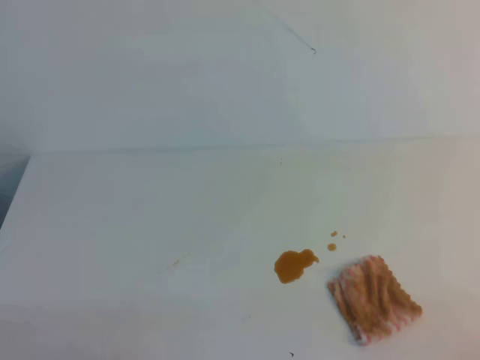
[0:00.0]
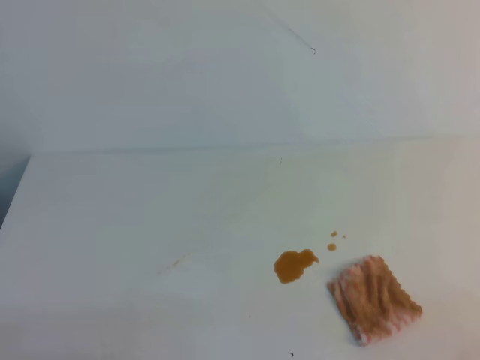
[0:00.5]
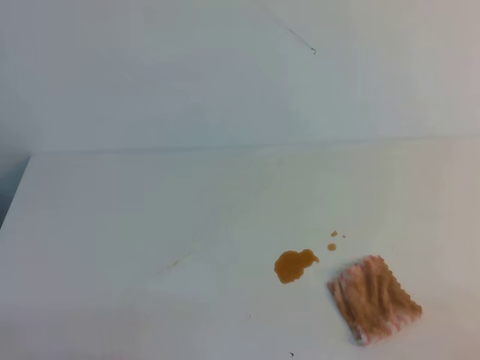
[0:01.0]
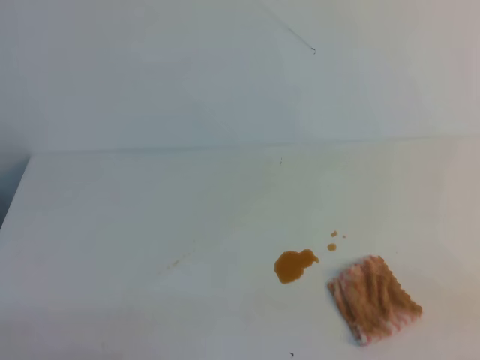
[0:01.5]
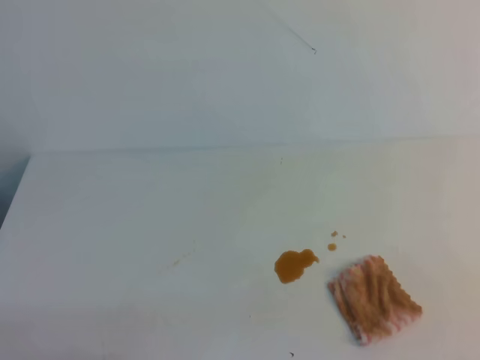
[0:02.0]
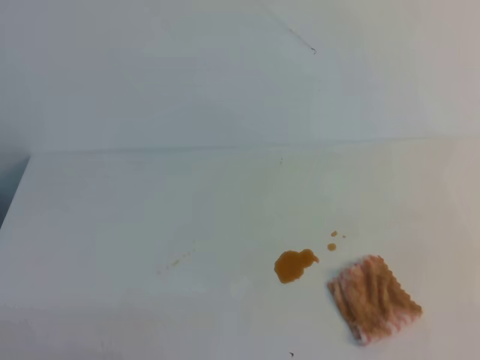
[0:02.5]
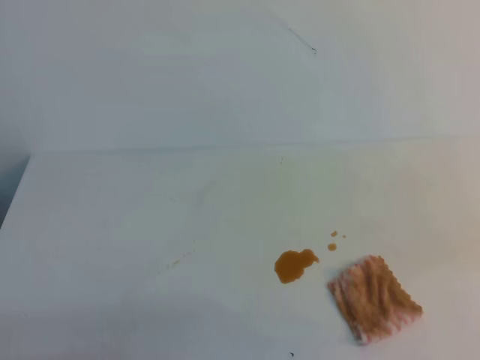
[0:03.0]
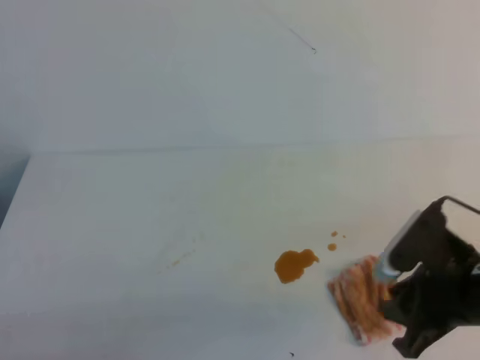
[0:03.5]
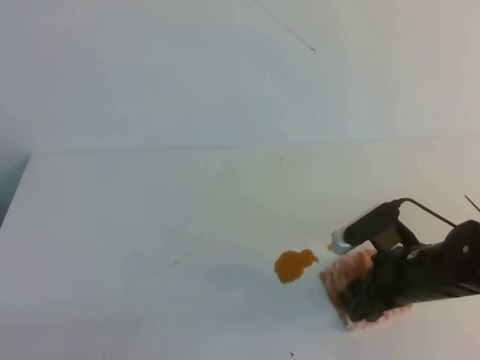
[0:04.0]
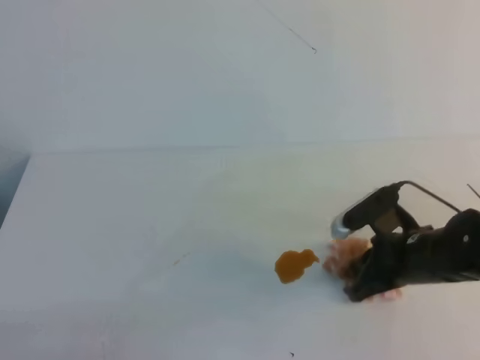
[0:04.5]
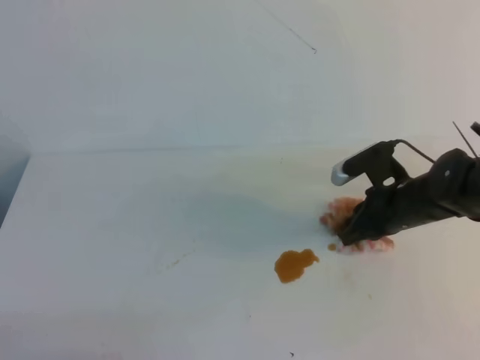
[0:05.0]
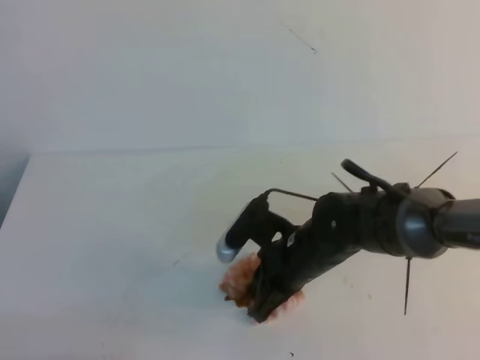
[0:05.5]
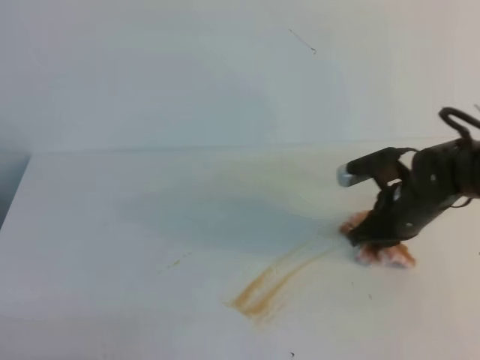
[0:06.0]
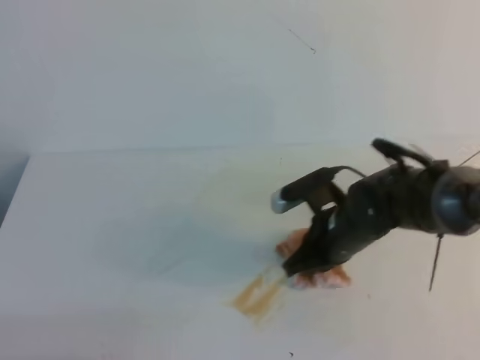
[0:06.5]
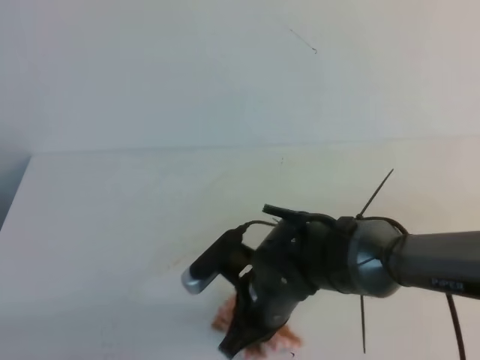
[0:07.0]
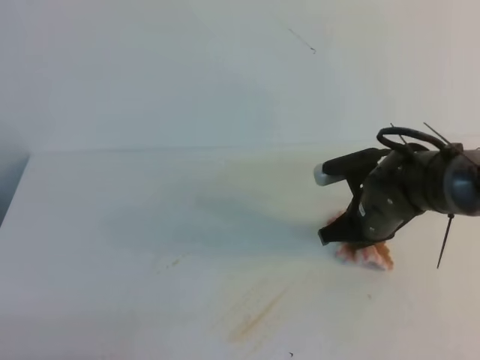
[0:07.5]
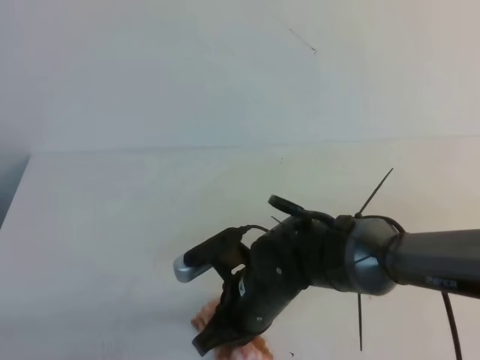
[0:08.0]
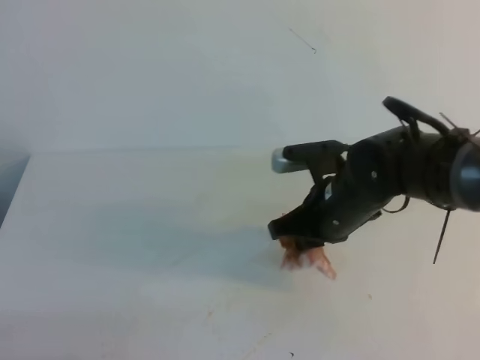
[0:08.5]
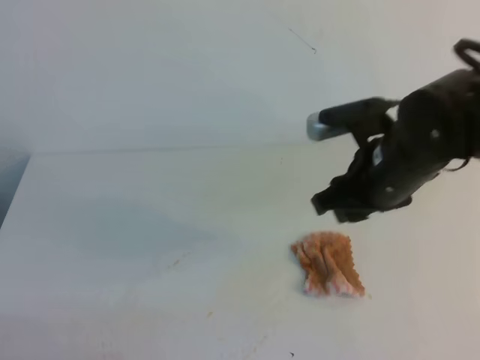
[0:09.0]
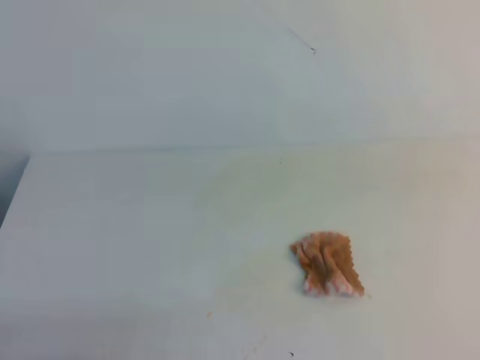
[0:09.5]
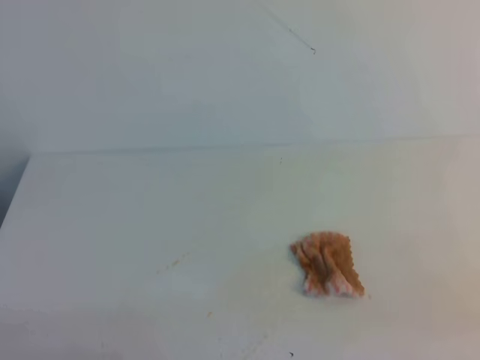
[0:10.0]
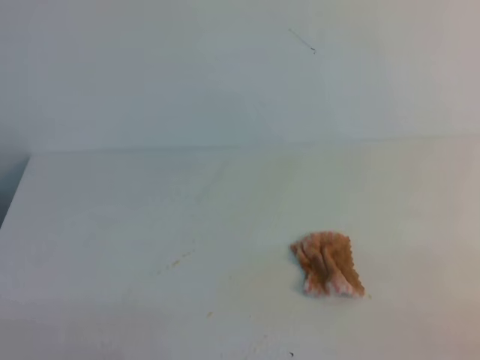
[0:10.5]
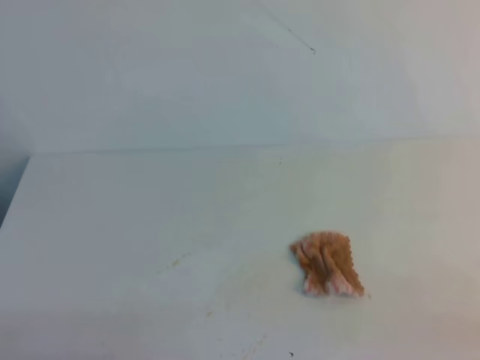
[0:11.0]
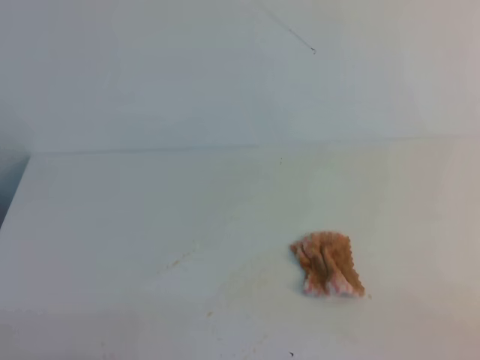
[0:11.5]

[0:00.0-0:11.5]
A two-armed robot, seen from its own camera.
0:02.0 to 0:04.0: The right gripper moves forward, to the left and downward, roughly 30 cm, and opens up.
0:04.0 to 0:06.0: The right gripper moves forward, roughly 10 cm, travels to the left and back again, about 10 cm each way, and closes.
0:06.0 to 0:07.5: The right gripper goes to the left and returns, approximately 15 cm each way.
0:07.5 to 0:09.5: The right gripper is displaced upward, backward and to the right by some 30 cm, and opens, then closes once more.

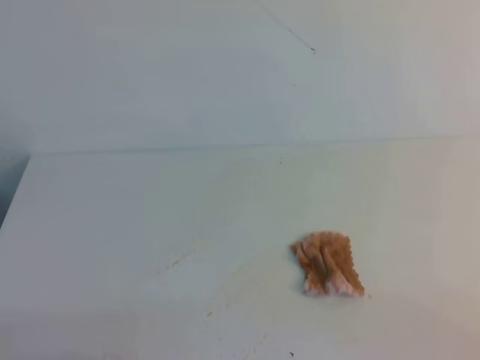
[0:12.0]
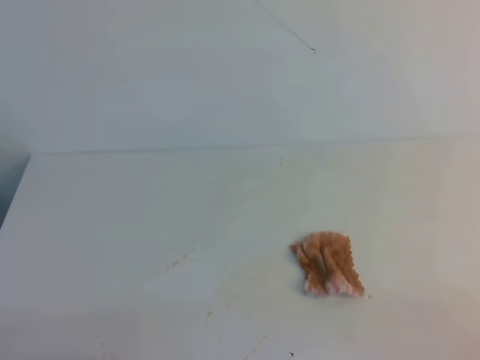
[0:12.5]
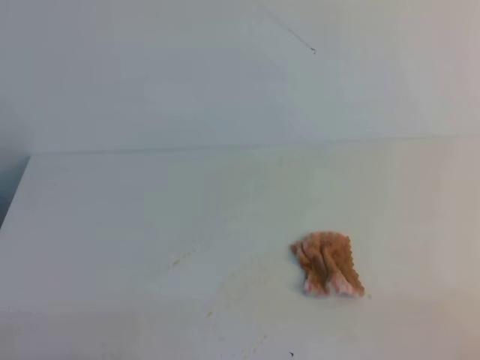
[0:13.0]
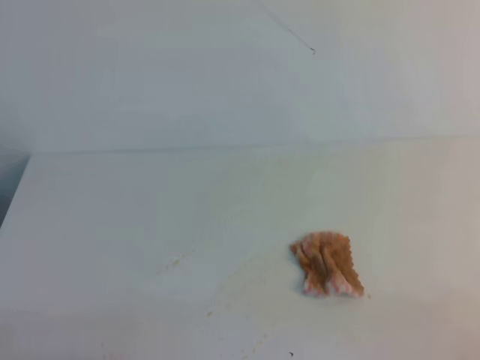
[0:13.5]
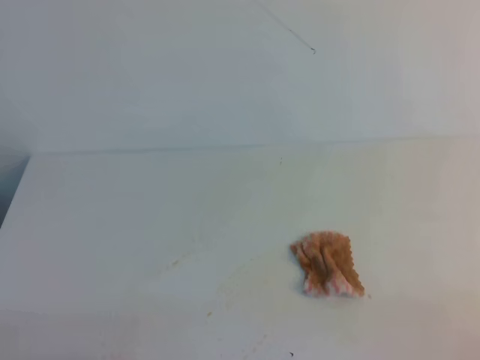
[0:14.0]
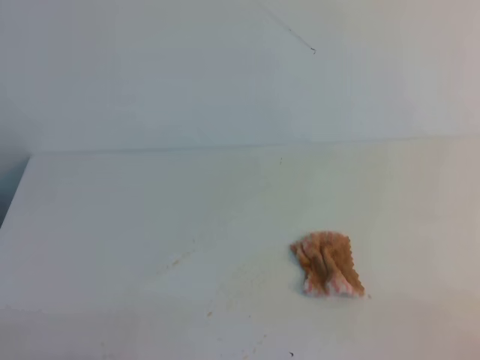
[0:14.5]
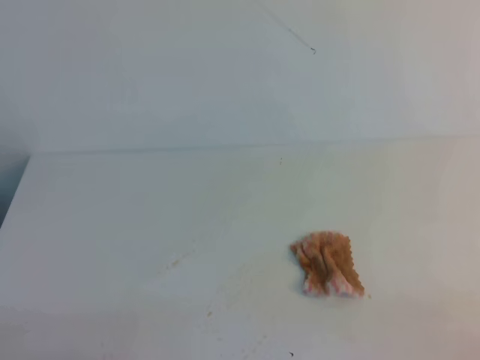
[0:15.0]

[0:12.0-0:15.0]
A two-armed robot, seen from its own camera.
0:13.5 to 0:15.0: Both grippers stay about where they are.
